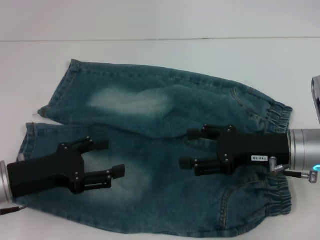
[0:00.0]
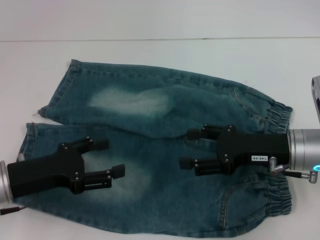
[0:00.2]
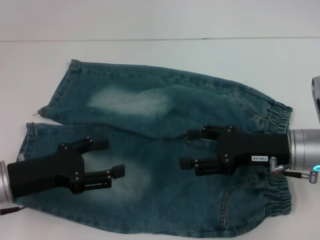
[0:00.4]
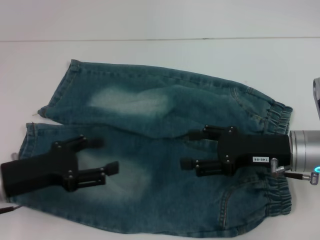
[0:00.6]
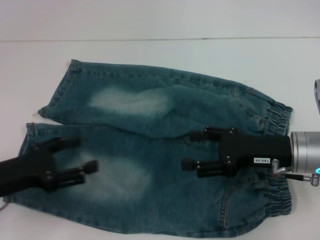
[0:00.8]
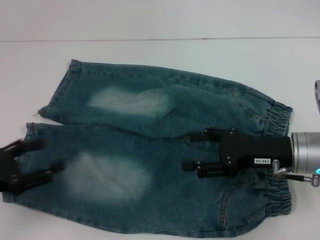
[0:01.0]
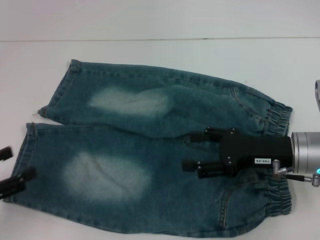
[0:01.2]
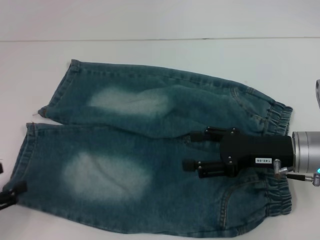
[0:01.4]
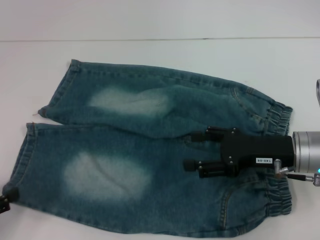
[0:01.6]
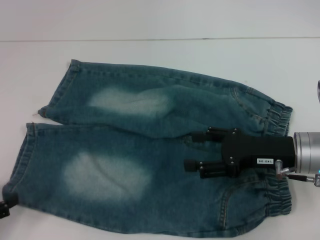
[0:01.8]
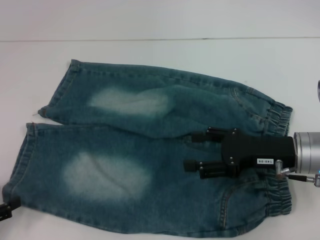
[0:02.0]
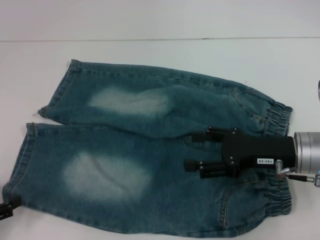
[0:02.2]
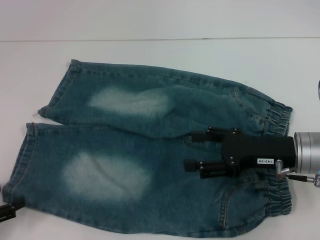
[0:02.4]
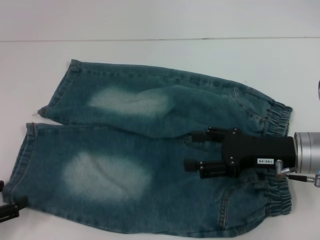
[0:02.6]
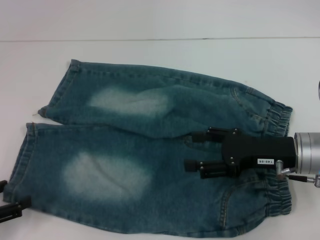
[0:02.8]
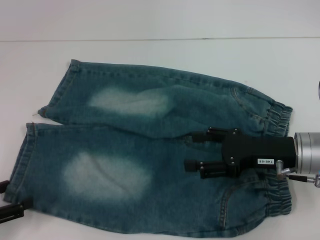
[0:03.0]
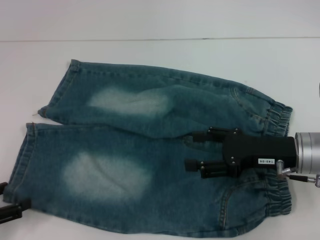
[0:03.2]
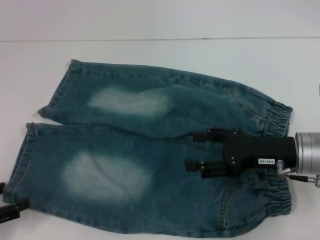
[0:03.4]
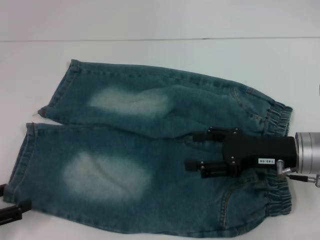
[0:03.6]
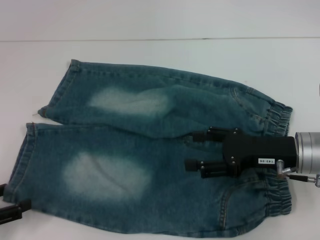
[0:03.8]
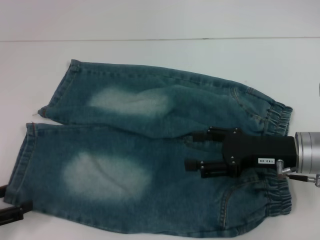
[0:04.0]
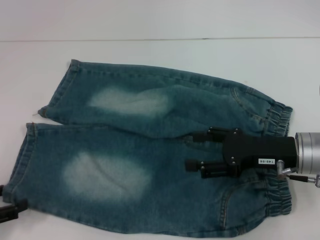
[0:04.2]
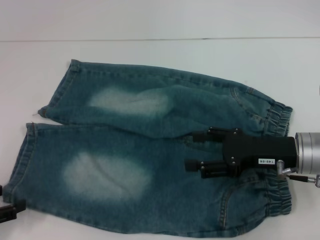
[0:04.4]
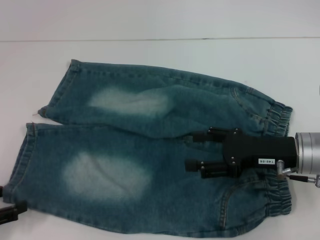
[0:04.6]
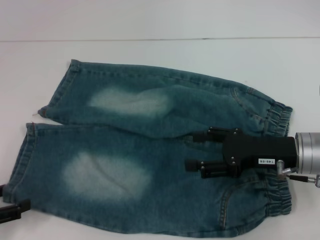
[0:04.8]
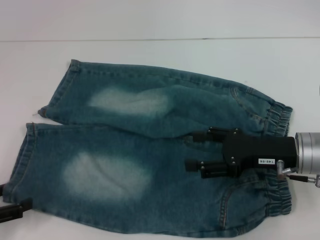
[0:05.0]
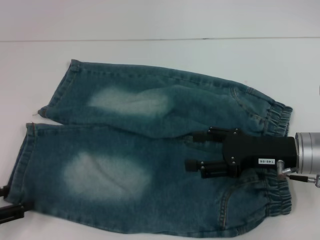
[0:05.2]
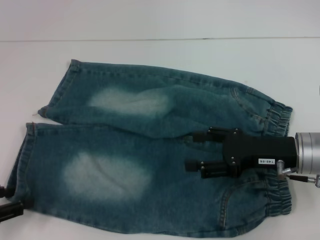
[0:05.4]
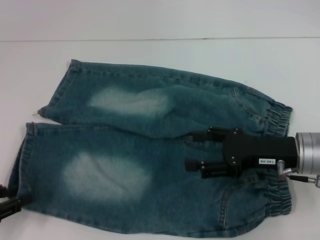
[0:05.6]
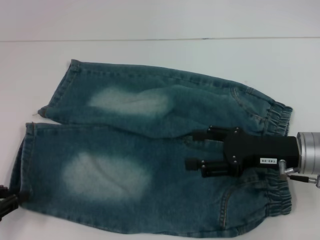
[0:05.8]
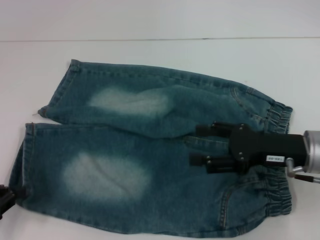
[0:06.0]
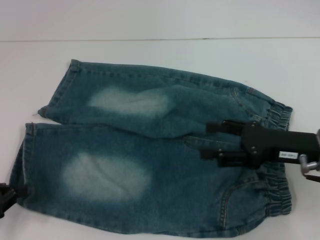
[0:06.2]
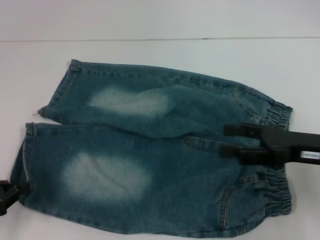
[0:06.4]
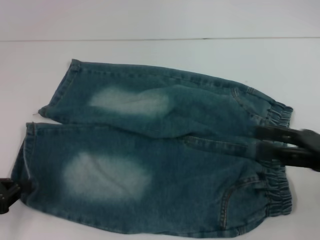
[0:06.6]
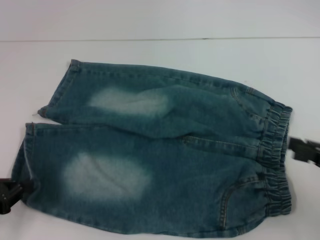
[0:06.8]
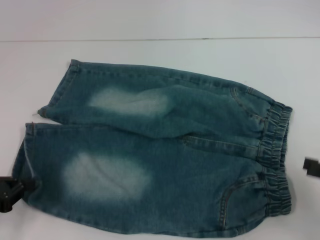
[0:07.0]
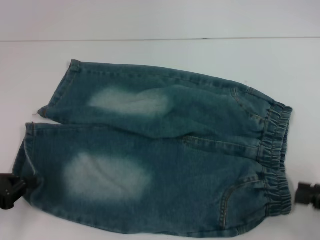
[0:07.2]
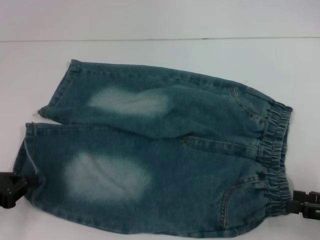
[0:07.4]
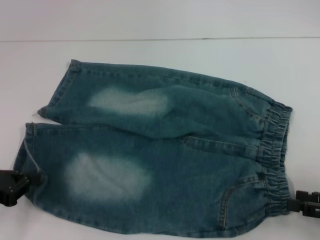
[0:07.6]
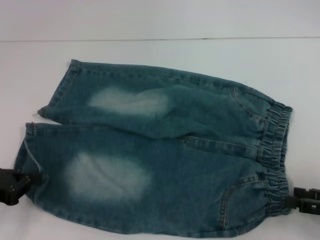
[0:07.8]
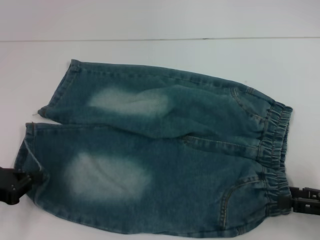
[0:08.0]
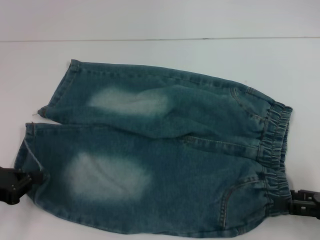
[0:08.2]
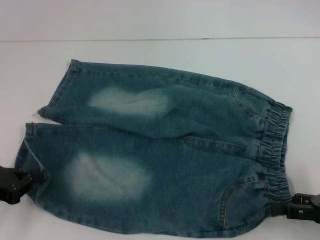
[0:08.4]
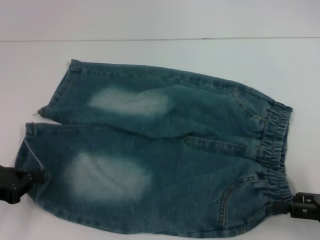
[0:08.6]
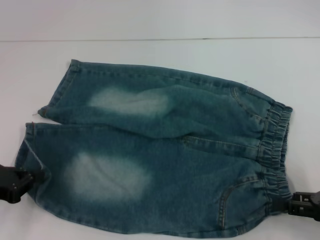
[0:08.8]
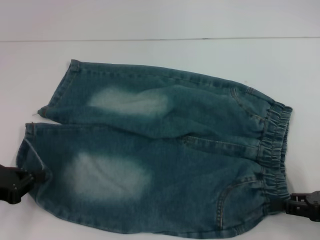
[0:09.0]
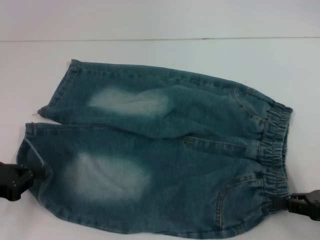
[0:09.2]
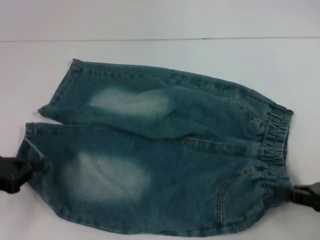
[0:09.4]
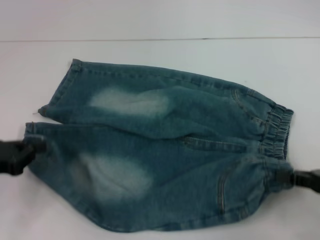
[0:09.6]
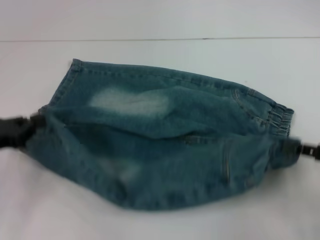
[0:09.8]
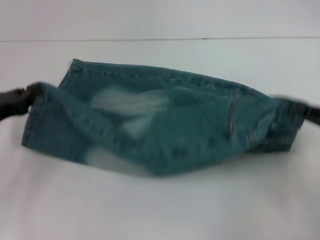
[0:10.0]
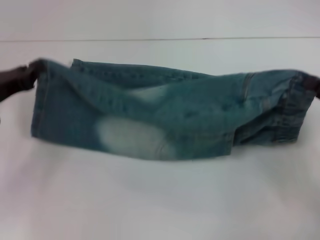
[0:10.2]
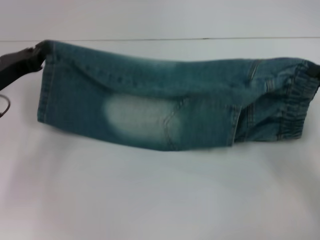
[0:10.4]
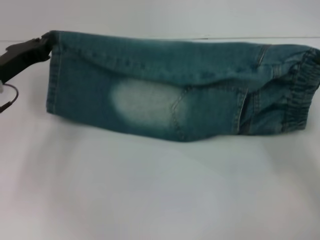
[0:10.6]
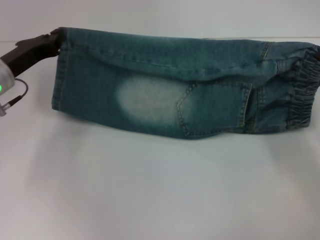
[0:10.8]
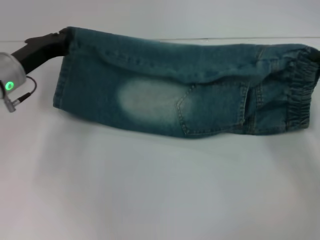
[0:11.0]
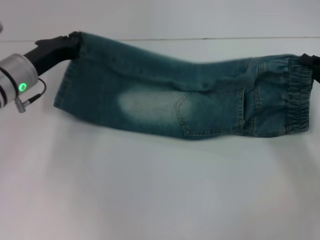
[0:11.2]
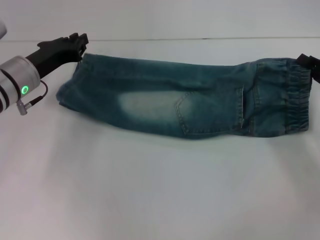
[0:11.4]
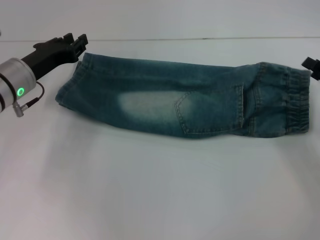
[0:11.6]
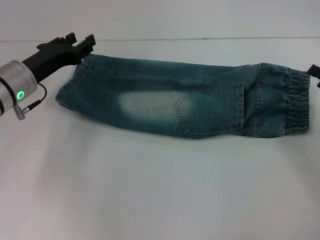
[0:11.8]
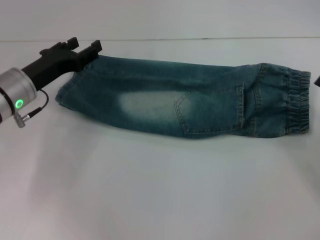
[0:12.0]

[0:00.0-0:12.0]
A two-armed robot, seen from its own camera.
Step, 0:00.0 to 0:06.0: Grab the lower left pant leg with your left hand.
Step, 0:06.2 to 0:09.0: Hold the lower right waistband with your right hand.
Step, 0:09.2 to 0:11.2: Fold upward with your left hand.
0:00.0 to 0:01.6: The left gripper shifts roughly 15 cm to the left and backward.
0:01.6 to 0:03.0: The grippers stay close to where they were, moving slightly.
0:03.0 to 0:04.4: Neither gripper changes place.
0:04.4 to 0:06.0: The left gripper closes up.
0:06.0 to 0:07.6: The right gripper heads to the right and backward, covering roughly 15 cm.
0:07.6 to 0:09.0: The right gripper closes up.
0:09.0 to 0:10.4: The right gripper goes approximately 10 cm forward, and closes. The left gripper heads forward, covering approximately 10 cm.
0:10.4 to 0:12.0: The left gripper shifts some 5 cm to the right, and opens up; the right gripper opens up.

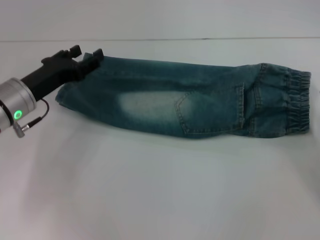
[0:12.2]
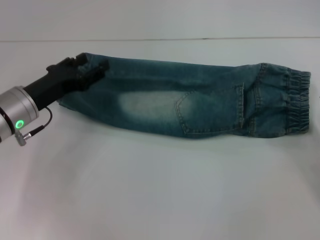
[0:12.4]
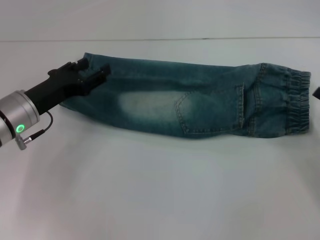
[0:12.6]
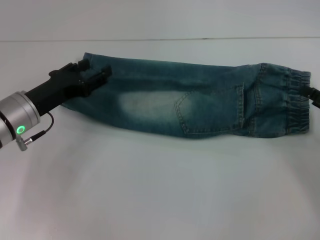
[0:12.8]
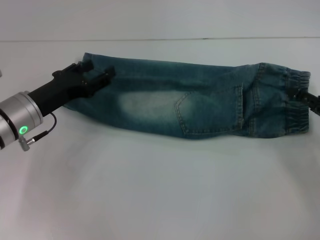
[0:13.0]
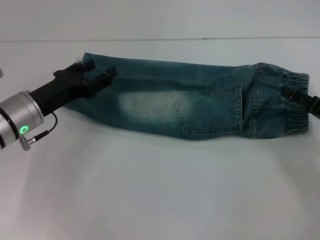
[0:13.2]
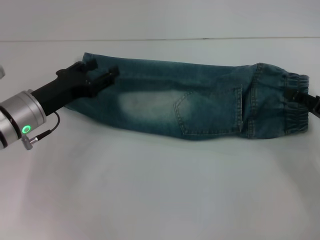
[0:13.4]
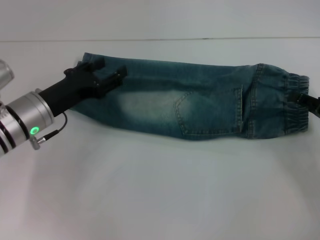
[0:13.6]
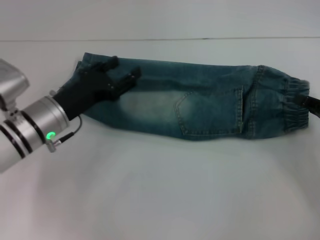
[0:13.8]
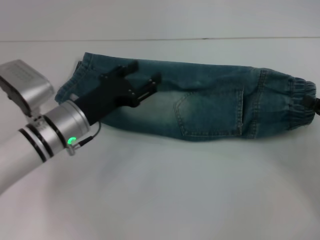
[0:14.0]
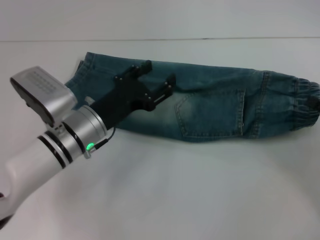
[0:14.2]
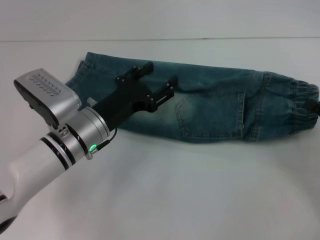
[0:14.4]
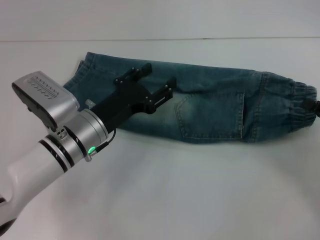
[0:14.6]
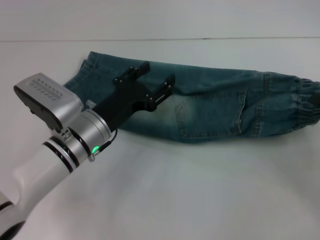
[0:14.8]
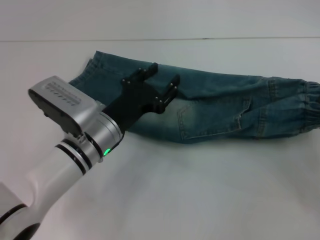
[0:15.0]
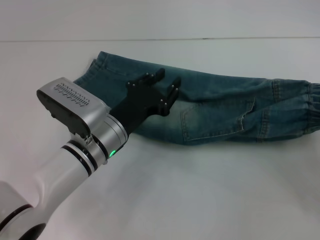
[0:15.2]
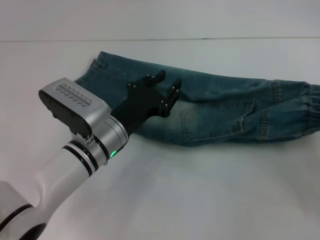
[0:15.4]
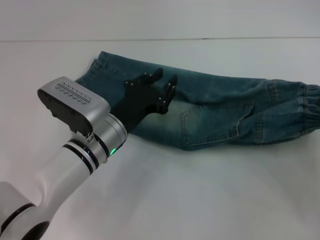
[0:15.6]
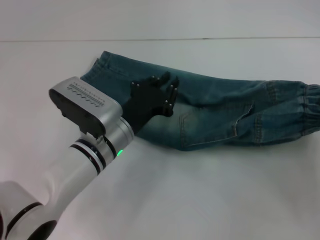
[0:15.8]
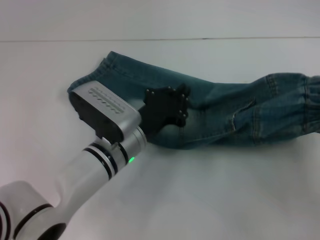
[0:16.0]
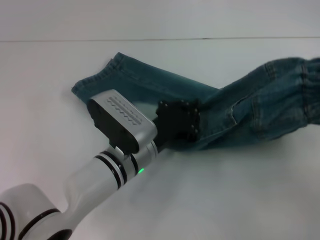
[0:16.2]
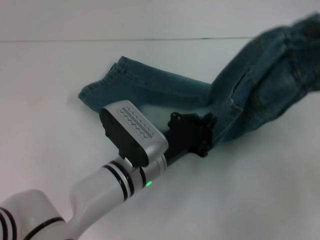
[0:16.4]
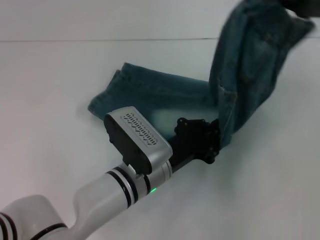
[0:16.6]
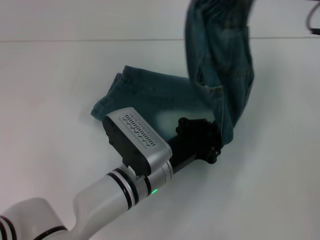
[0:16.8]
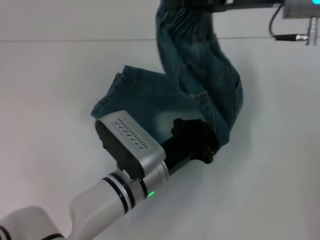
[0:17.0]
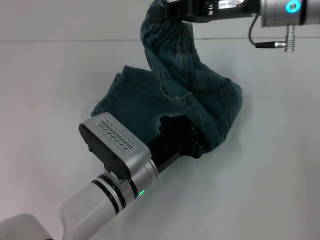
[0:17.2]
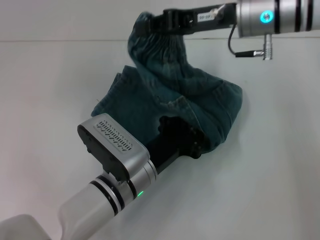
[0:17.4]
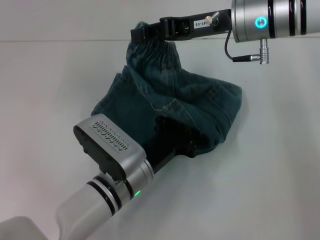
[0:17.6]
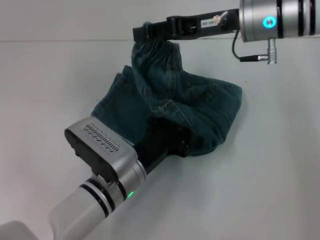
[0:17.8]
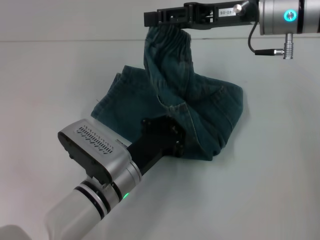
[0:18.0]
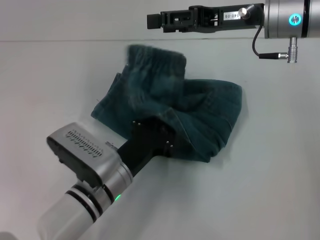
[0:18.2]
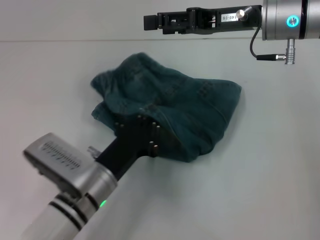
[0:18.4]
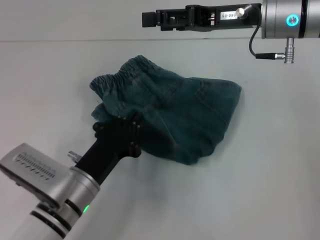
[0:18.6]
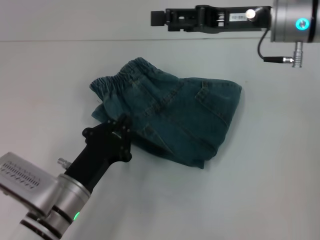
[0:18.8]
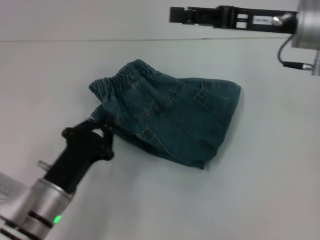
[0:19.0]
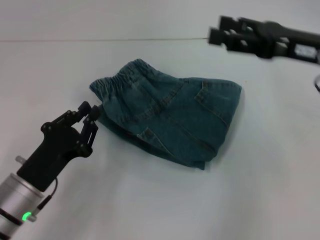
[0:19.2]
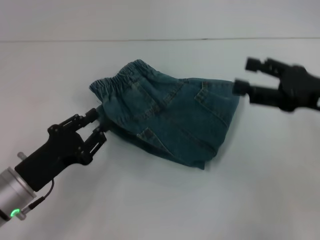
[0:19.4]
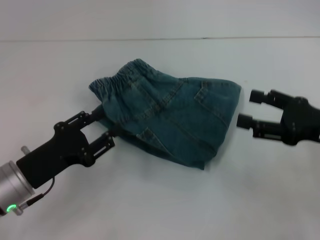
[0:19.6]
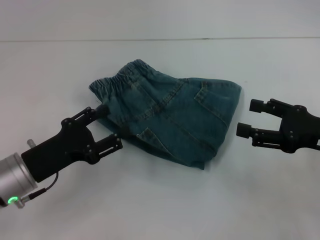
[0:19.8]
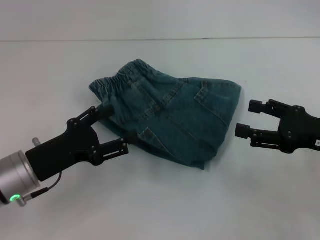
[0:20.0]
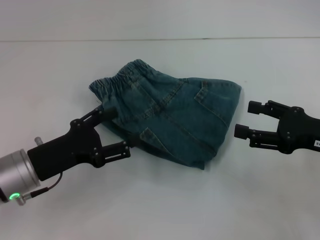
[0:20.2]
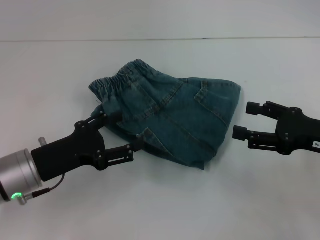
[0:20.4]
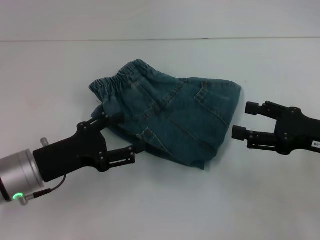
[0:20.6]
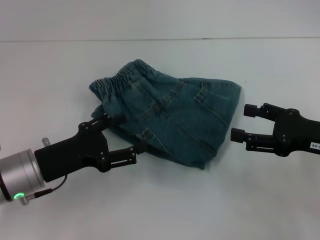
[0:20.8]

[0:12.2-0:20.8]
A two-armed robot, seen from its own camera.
Step, 0:12.2 to 0:14.4: Grab the waistband with your right hand.
Step, 0:14.8 to 0:17.8: Press the middle of the pants with your left hand.
Step, 0:18.0 to 0:18.4: Fold to the left with your right hand.
0:12.2 to 0:13.6: The right gripper changes place by approximately 5 cm.
0:13.6 to 0:15.0: The left gripper is displaced to the right by approximately 10 cm. The right gripper moves approximately 5 cm, and closes its fingers.
0:15.0 to 0:16.6: The right gripper goes about 20 cm upward, forward and to the left, while the left gripper shifts about 5 cm to the right, and closes its fingers.
0:16.6 to 0:18.0: The right gripper moves to the left, roughly 10 cm, and opens its fingers.
0:18.0 to 0:19.4: The left gripper moves to the left, approximately 15 cm. The right gripper travels backward, to the right and downward by about 20 cm, and opens its fingers.
0:19.4 to 0:20.8: The left gripper opens.

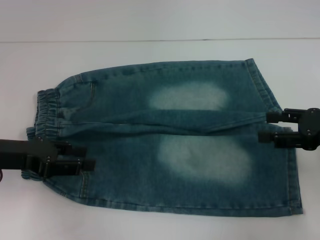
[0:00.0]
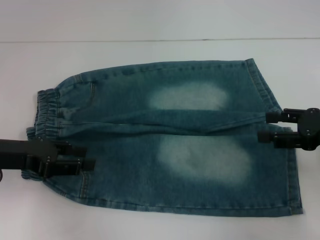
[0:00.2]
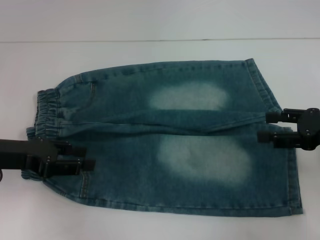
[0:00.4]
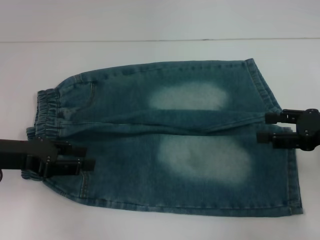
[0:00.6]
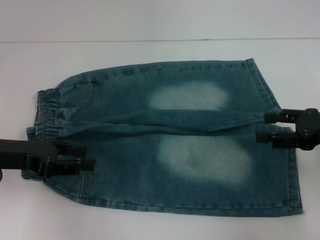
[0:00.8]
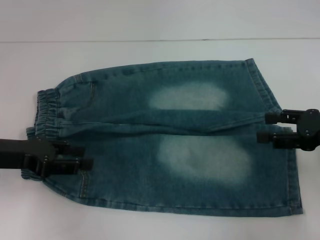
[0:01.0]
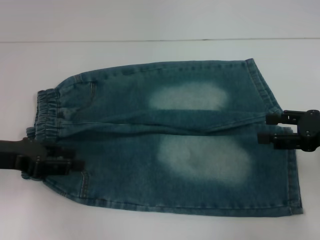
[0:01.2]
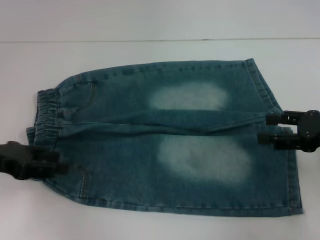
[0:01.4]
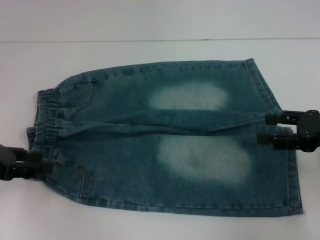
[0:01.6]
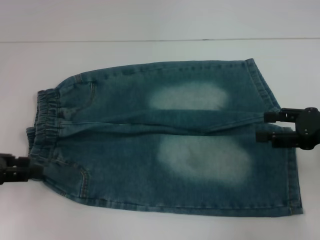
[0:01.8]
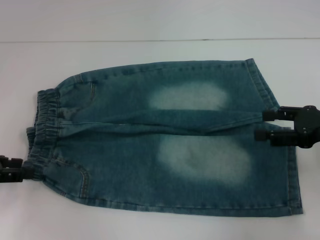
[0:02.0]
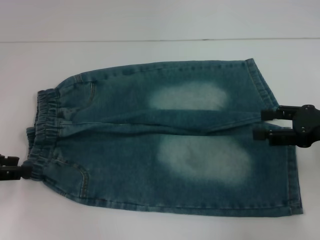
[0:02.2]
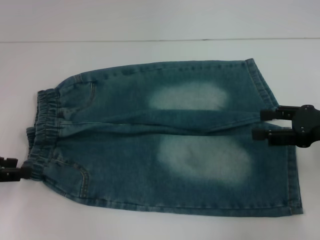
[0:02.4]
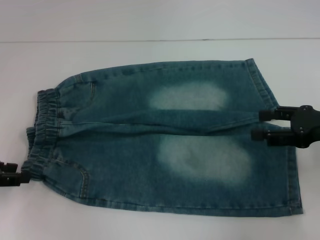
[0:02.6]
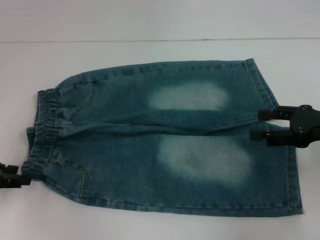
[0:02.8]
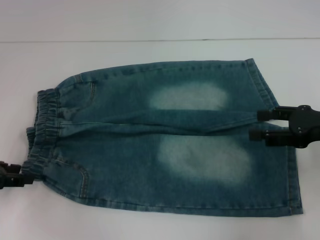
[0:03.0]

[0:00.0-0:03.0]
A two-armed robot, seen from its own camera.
0:00.0 to 0:01.6: The grippers stay close to where they were, moving slightly.
0:01.6 to 0:03.0: The grippers make only small movements.
